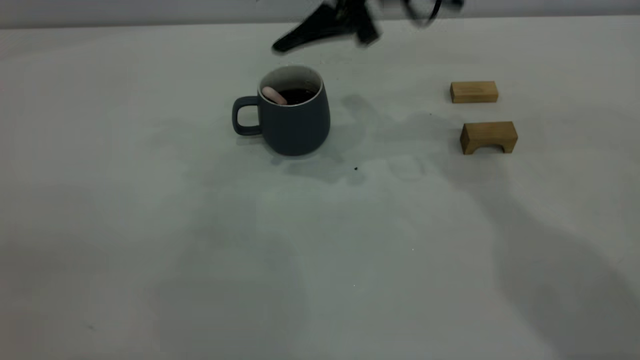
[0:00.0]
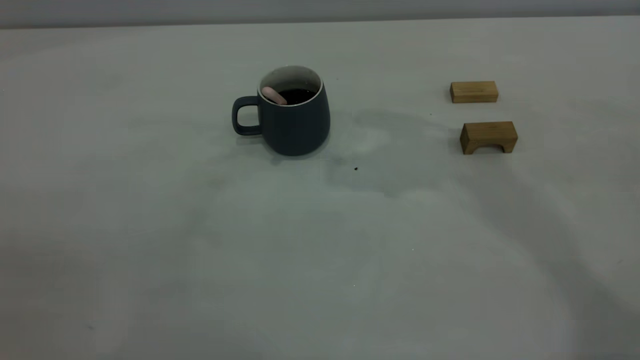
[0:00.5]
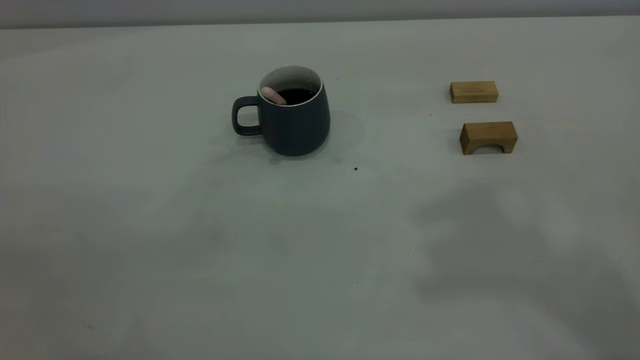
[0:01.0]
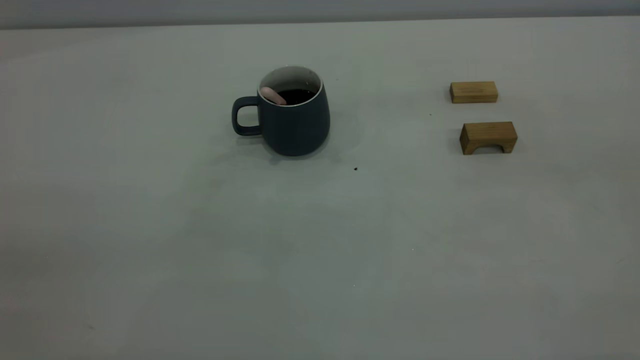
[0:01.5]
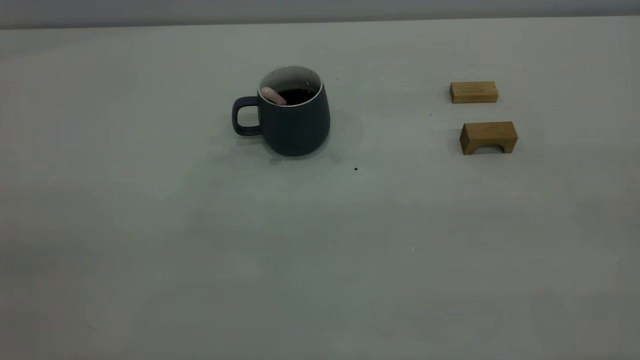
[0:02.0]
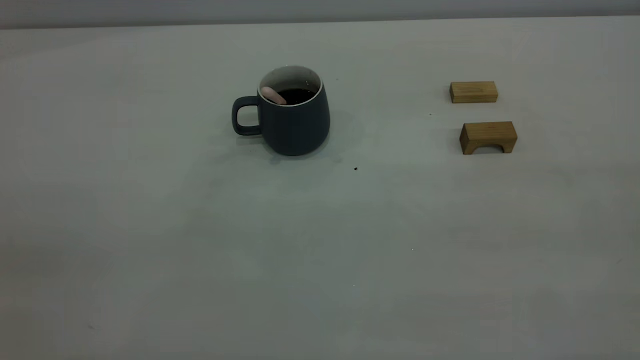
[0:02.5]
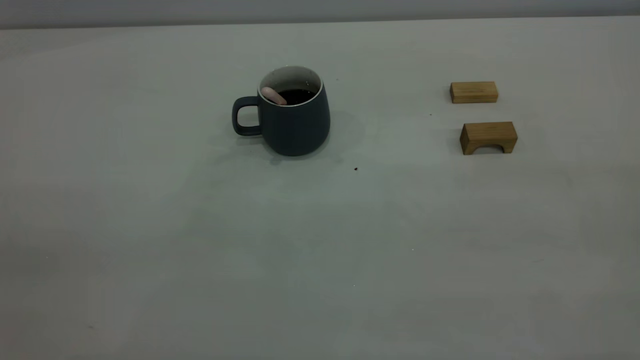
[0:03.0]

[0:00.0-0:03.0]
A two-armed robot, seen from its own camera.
0:00.0 to 0:01.5: The right gripper moves backward, to the right and upward, about 50 cm, and closes its fingers.

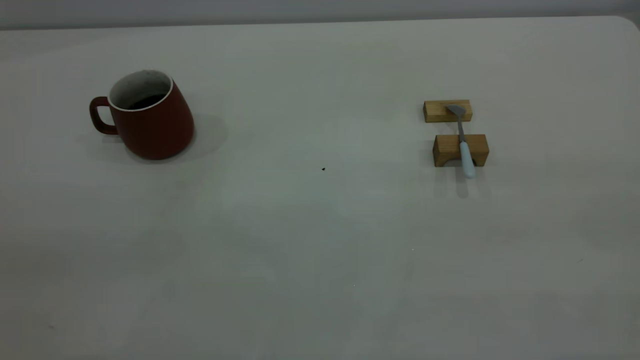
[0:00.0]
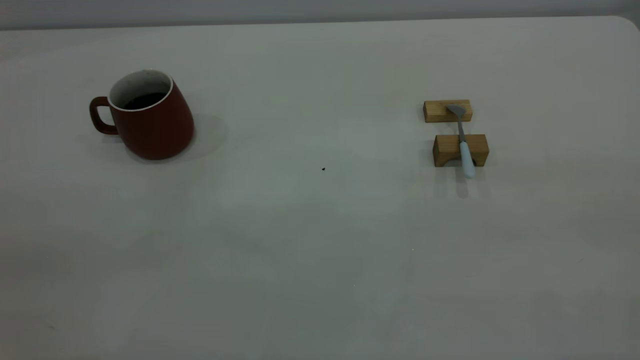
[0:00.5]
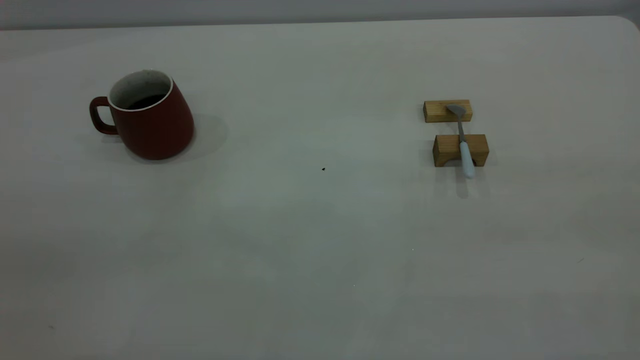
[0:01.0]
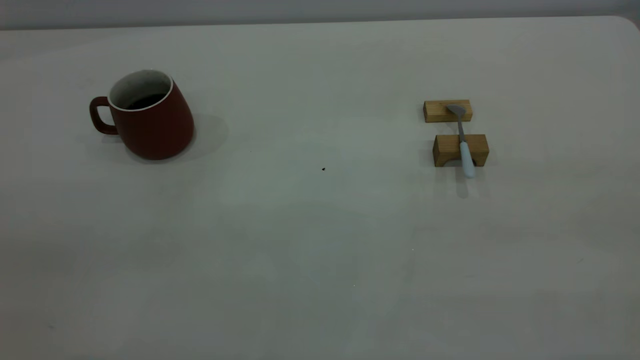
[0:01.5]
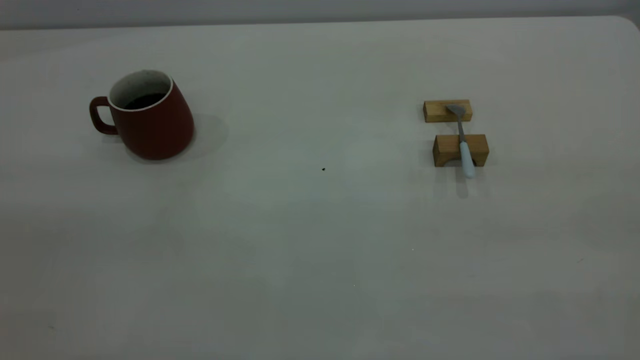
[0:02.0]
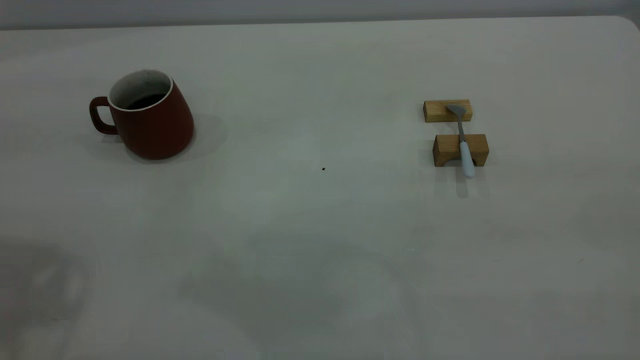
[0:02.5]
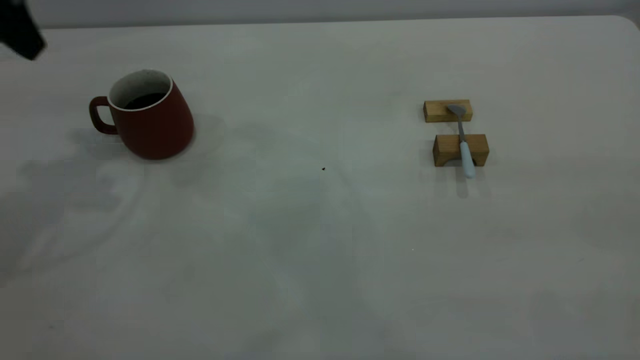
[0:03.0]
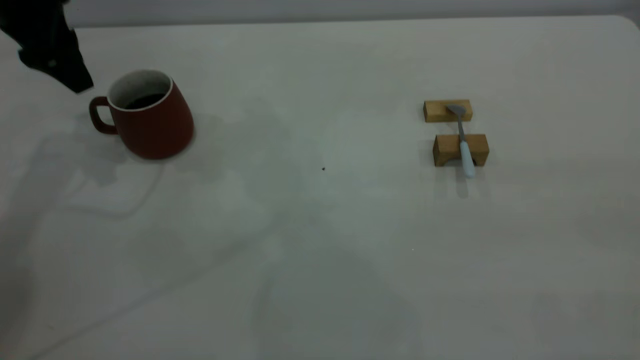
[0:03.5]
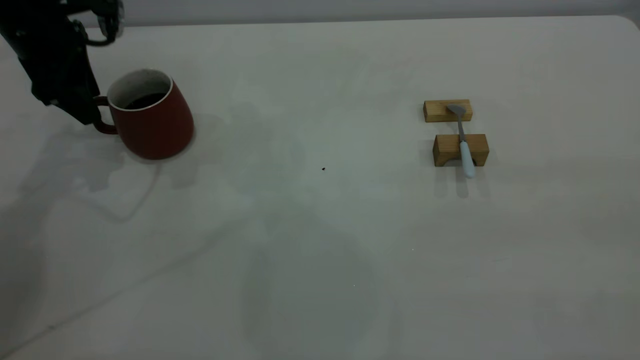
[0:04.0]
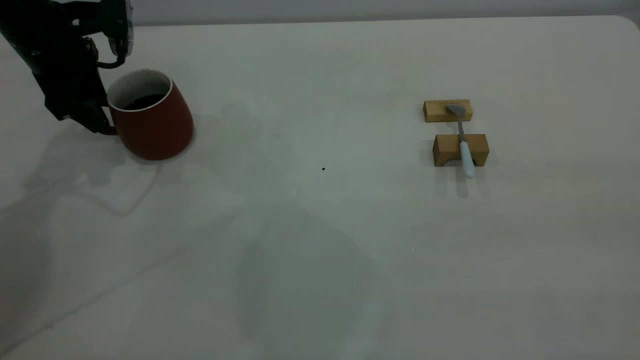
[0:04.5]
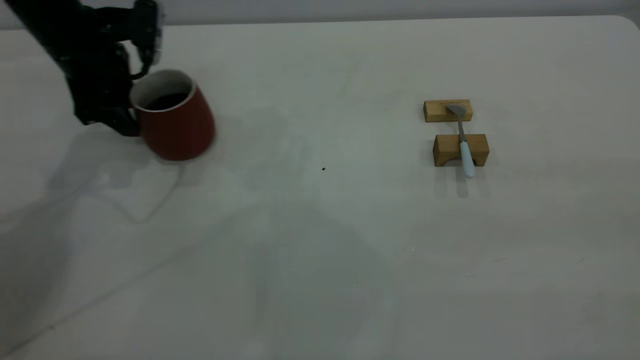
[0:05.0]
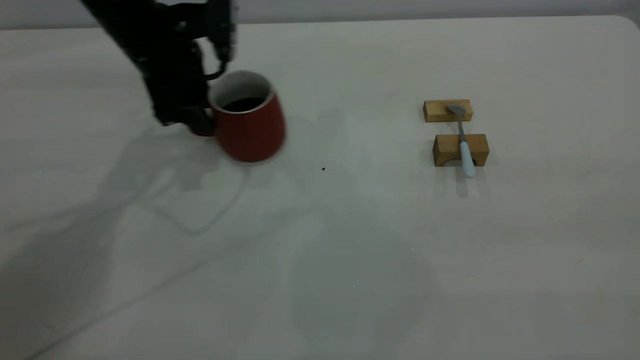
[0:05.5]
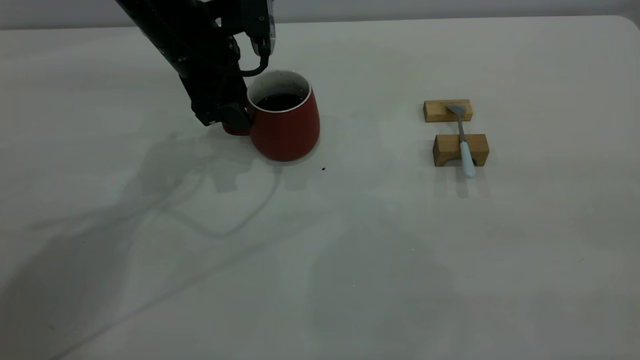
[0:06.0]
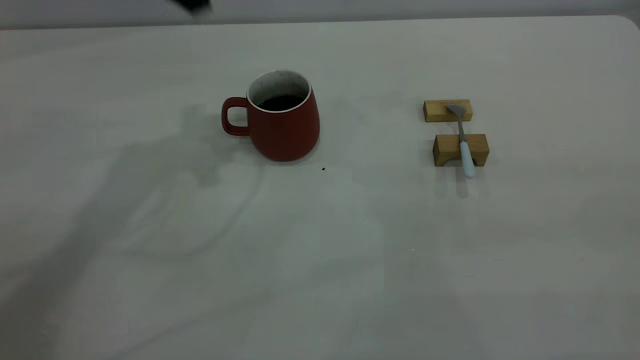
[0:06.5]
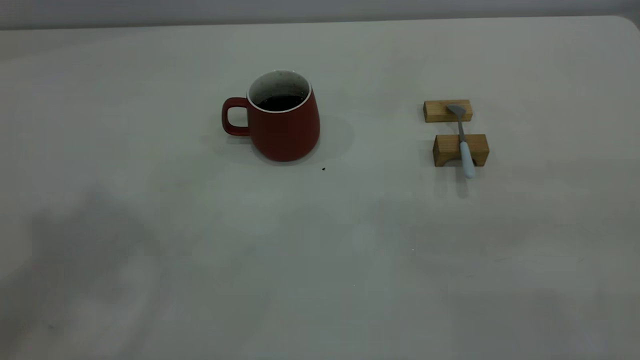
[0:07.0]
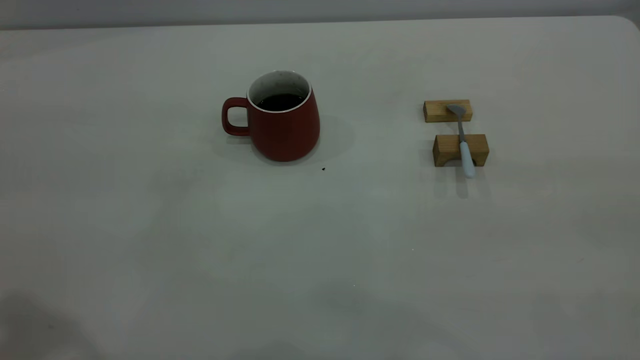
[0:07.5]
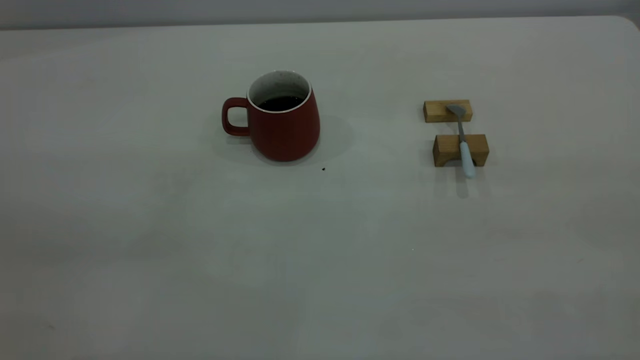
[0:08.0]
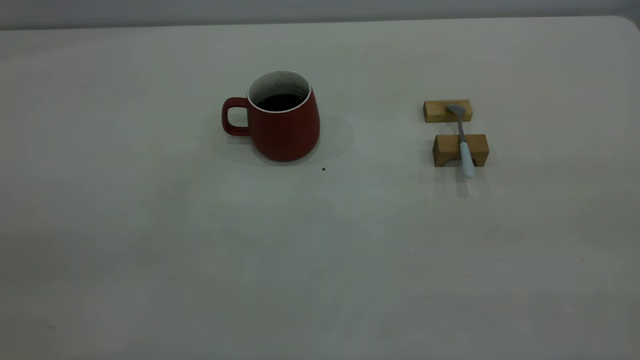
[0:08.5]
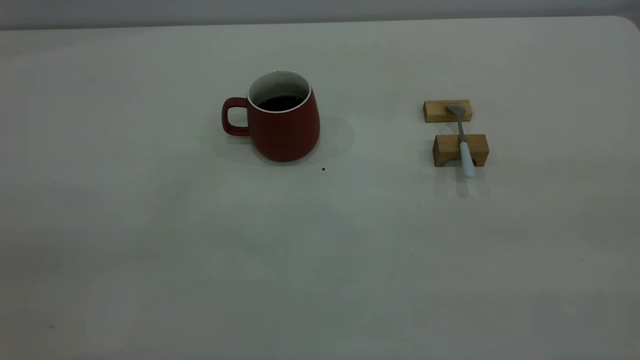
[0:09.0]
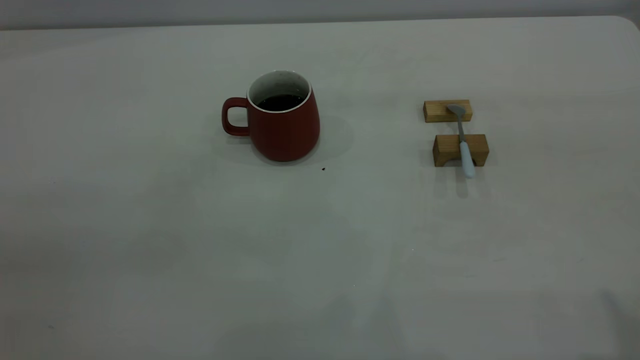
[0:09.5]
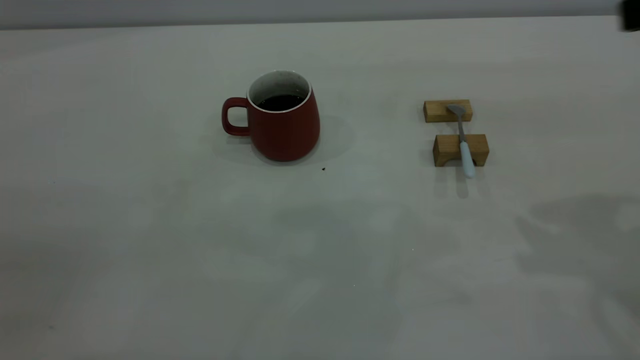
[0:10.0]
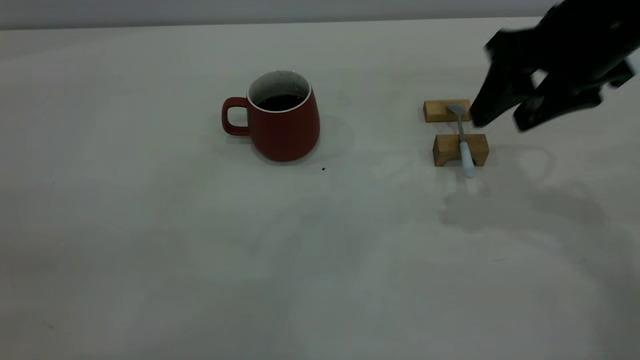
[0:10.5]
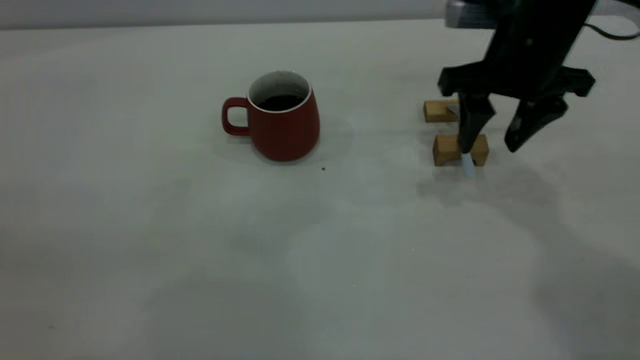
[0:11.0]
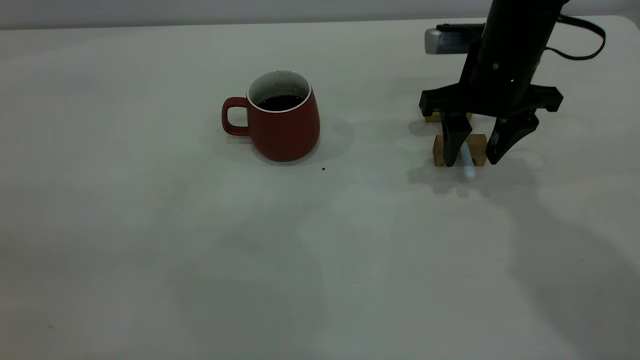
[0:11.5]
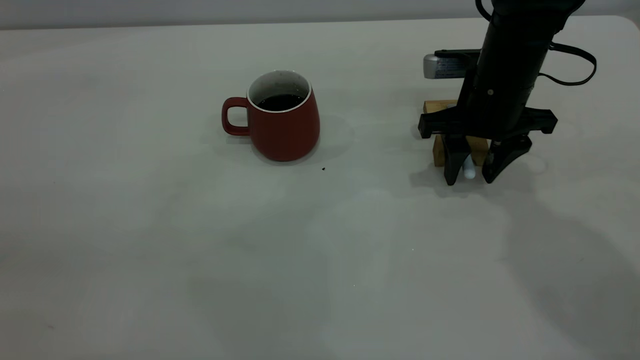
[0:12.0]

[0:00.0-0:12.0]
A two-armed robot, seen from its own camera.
Step, 0:00.0 to 0:06.0: Move the cup with coffee to the center of view.
0:02.0 to 0:04.0: The left gripper moves forward and downward, some 40 cm.
0:04.0 to 0:06.0: The left gripper shifts approximately 15 cm to the right.
0:06.0 to 0:08.0: The left gripper moves backward and upward, about 40 cm.
0:10.0 to 0:12.0: The right gripper moves downward, forward and to the left, about 25 cm.

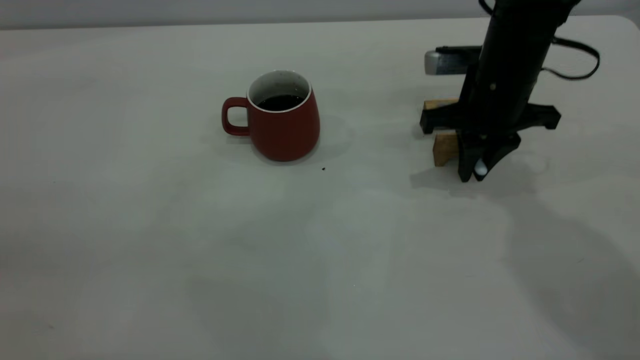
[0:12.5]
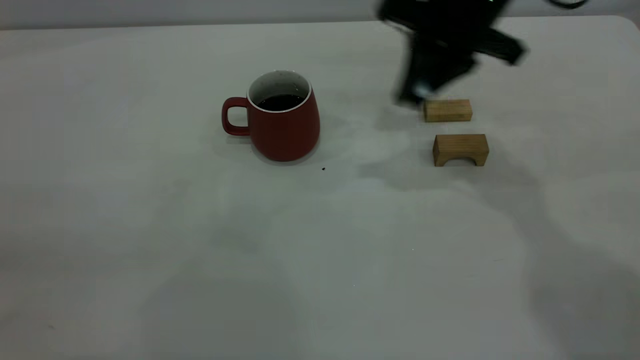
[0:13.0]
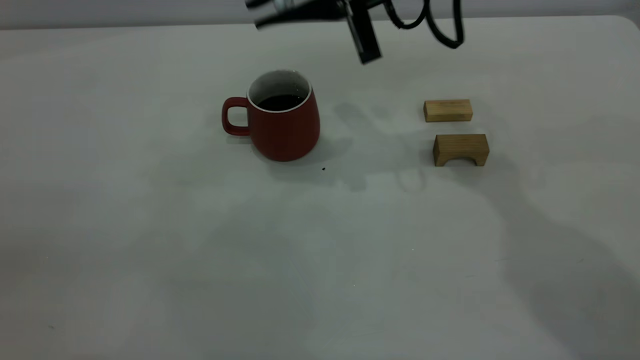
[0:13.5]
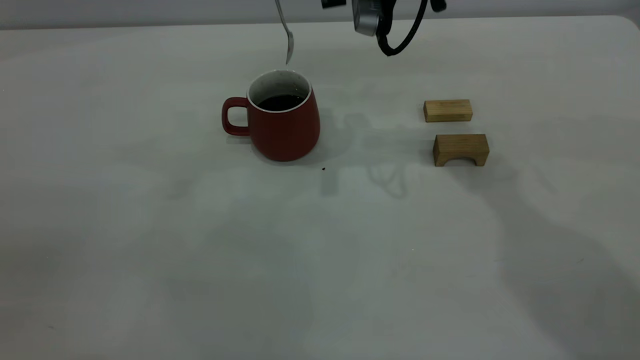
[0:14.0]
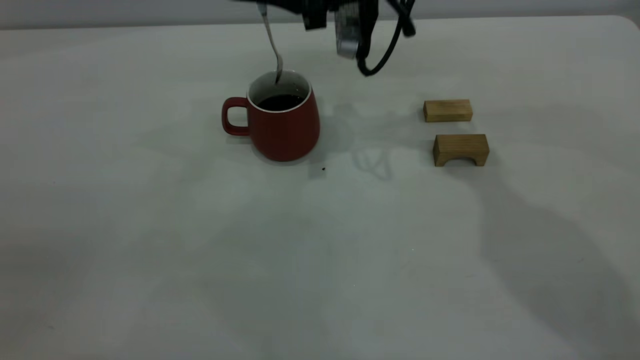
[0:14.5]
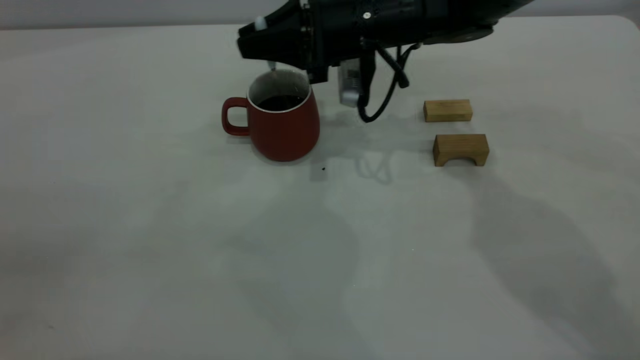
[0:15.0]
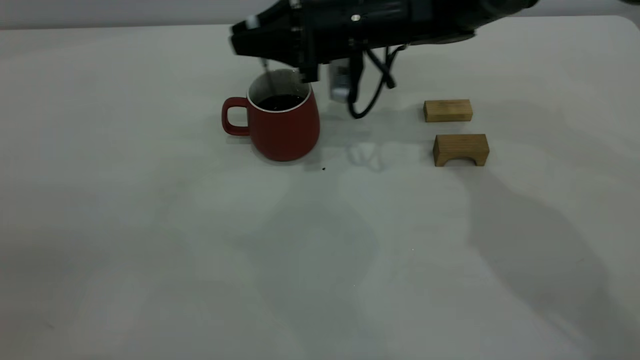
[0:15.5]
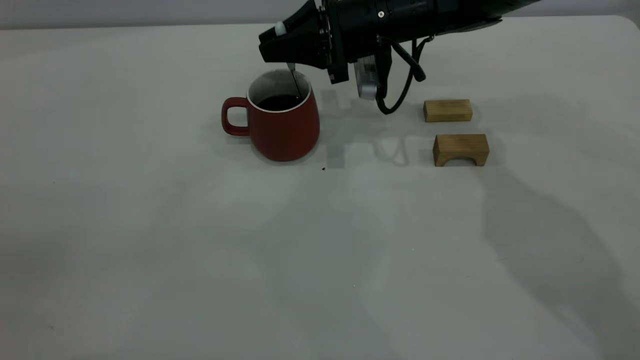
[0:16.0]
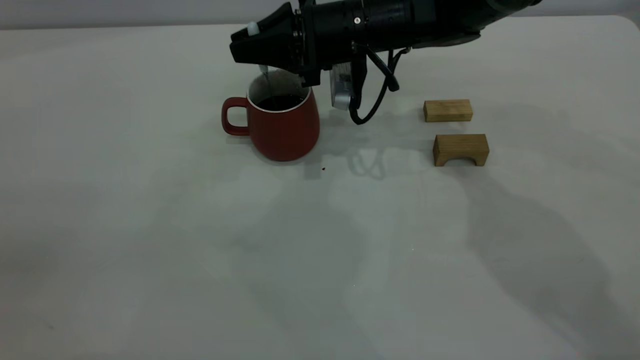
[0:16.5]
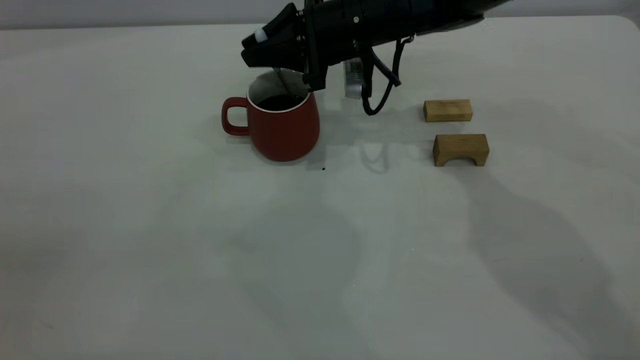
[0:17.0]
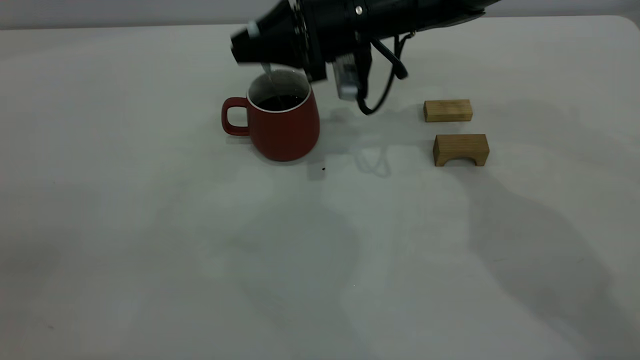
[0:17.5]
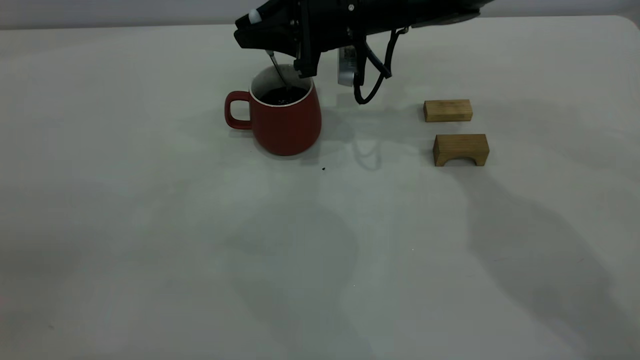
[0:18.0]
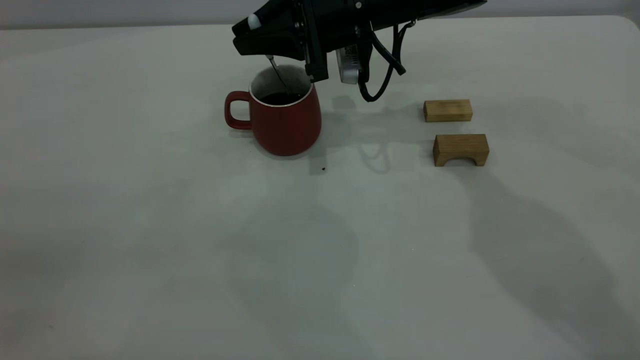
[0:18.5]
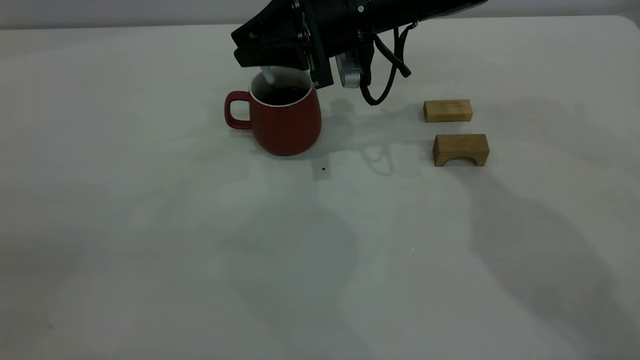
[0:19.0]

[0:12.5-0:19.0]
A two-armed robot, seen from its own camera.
0:12.5 to 0:14.5: The right gripper shifts about 15 cm to the left, upward and forward.
0:14.5 to 0:17.0: The right gripper moves downward, approximately 5 cm.
0:17.0 to 0:19.0: The right gripper opens.
